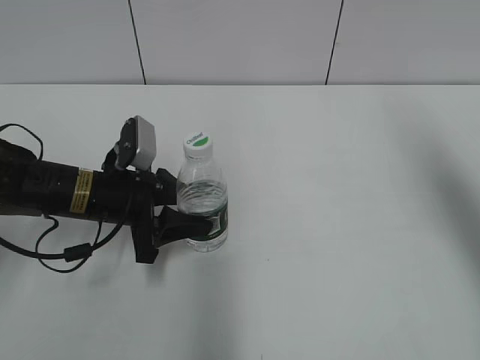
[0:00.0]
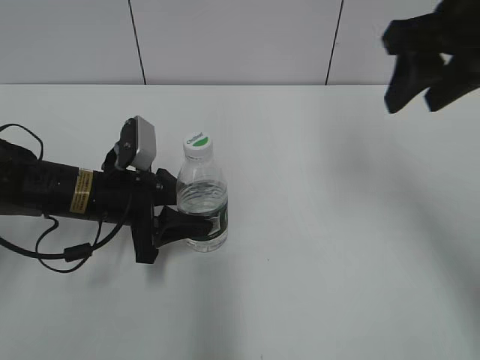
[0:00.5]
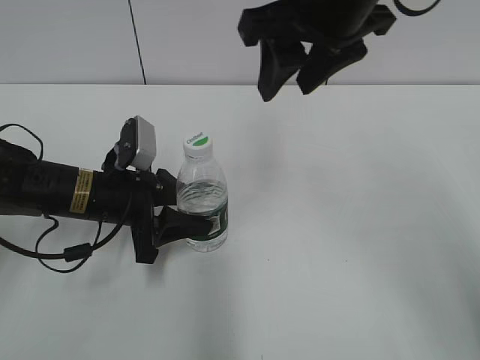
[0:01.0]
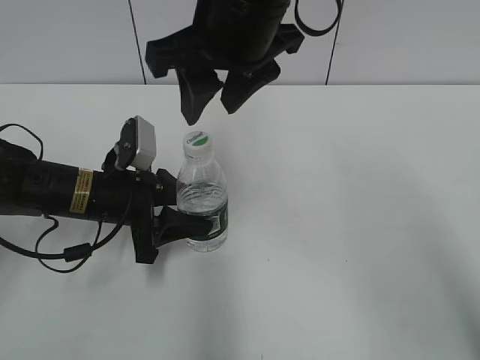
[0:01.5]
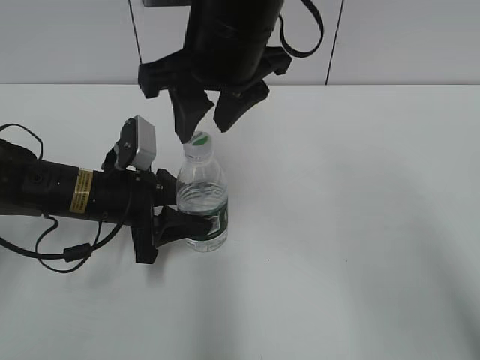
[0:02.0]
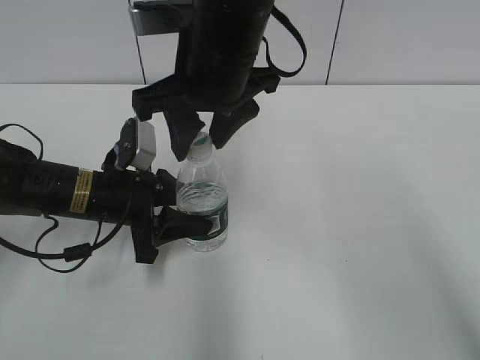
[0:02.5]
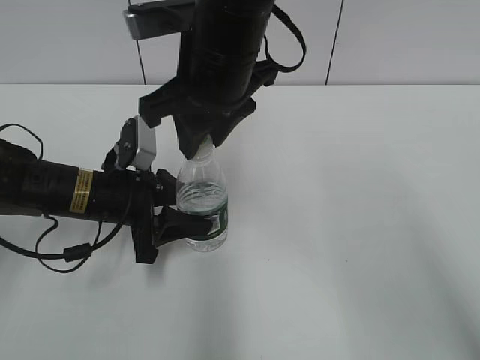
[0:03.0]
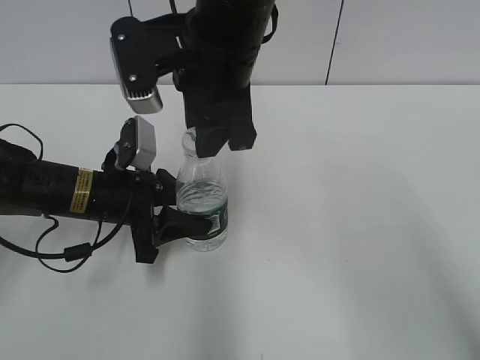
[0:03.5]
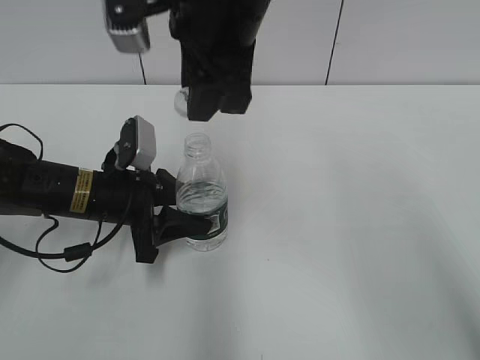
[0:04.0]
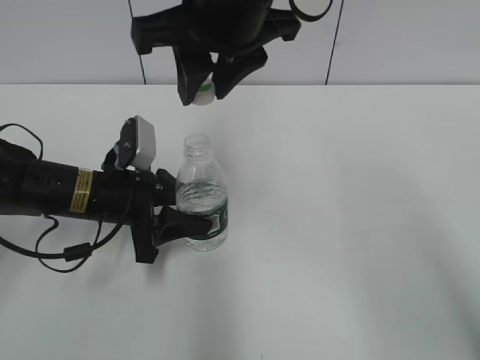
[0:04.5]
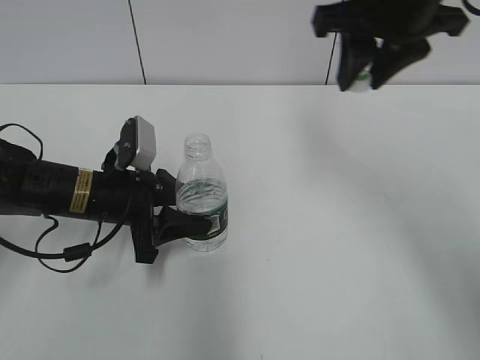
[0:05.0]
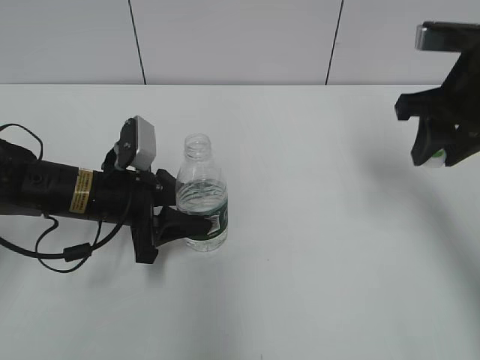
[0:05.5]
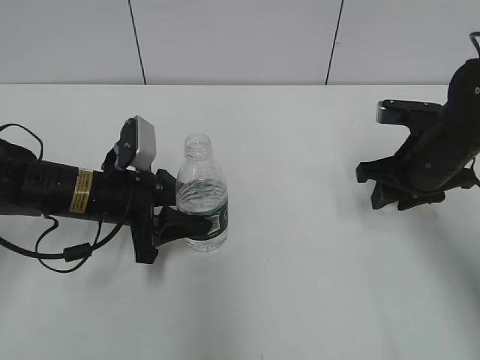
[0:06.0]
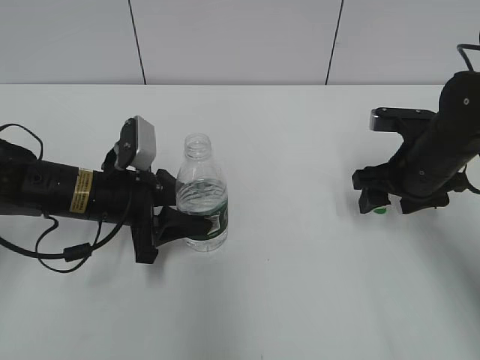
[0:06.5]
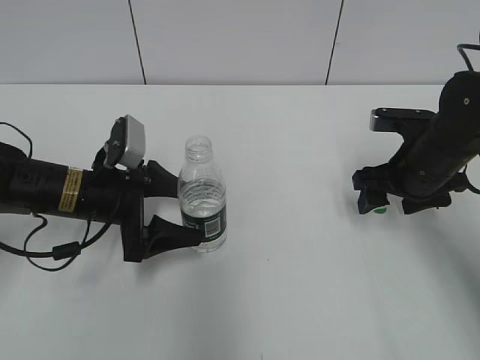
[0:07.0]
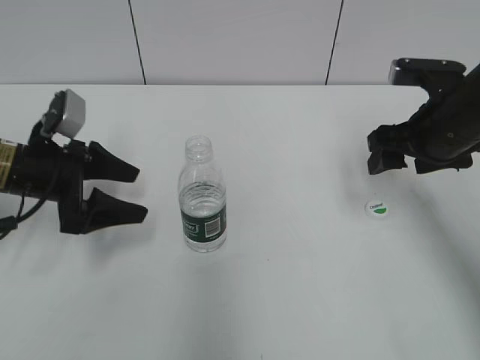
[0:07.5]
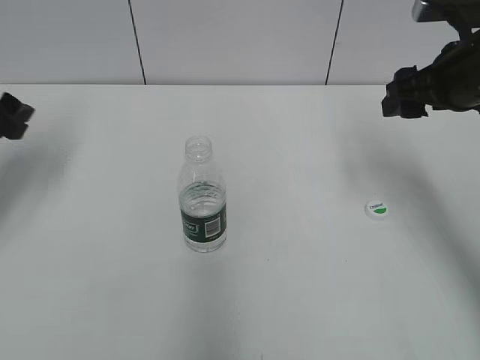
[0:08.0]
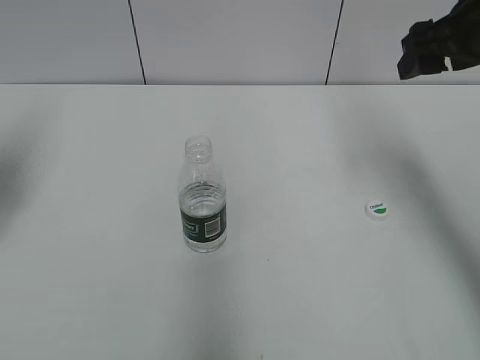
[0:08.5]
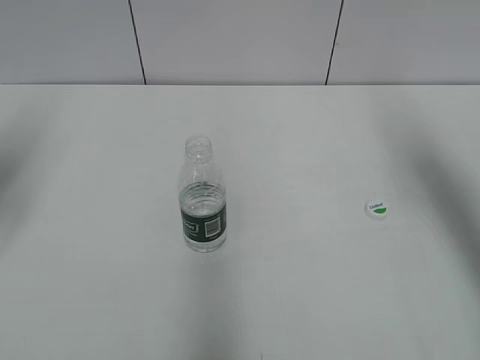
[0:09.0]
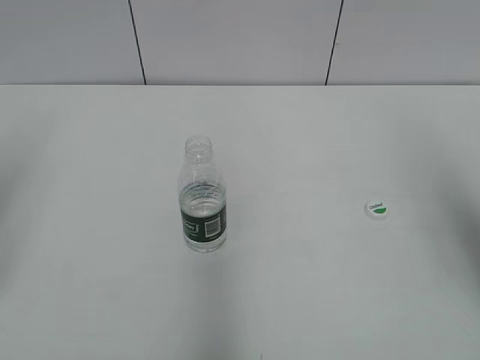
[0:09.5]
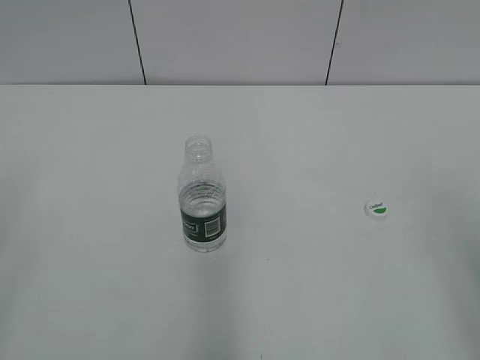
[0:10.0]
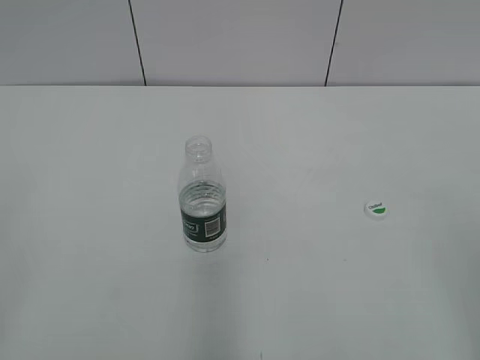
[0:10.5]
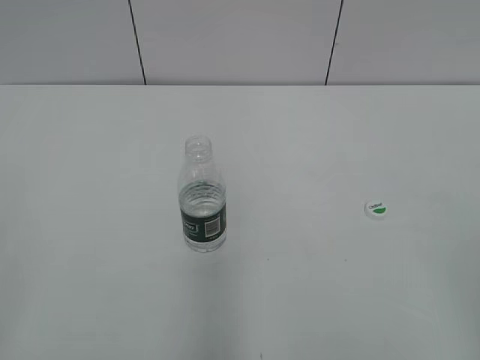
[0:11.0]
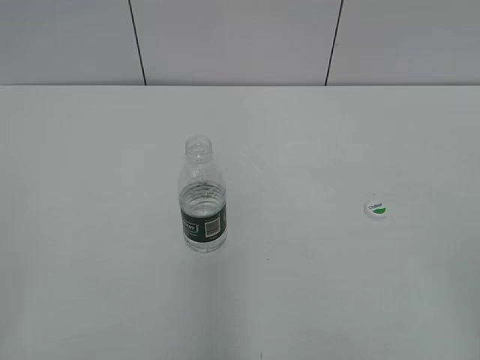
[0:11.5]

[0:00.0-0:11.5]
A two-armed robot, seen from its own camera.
Step, 0:00.0 to 0:04.0: Unscrew the bottle cap with the right gripper while holding the bottle with the left gripper.
Step, 0:04.5 to 0:06.0: Place the bottle cap on the table with the right gripper.
Step, 0:07.0 to 0:07.5: Place the bottle on the table with the left gripper.
0:00.0 to 0:02.0: The right gripper is displaced to the left by some 30 cm.
0:02.0 to 0:04.0: The right gripper closes its fingers.
0:04.0 to 0:06.0: The right gripper heads to the right and downward, covering roughly 30 cm.
0:06.0 to 0:07.5: The right gripper opens its fingers; the left gripper shifts roughly 10 cm to the left, and opens its fingers.
0:07.5 to 0:09.5: The right gripper is displaced upward, backward and to the right by roughly 20 cm. Meanwhile the left gripper moves upward, backward and to the left, approximately 25 cm, and closes up.
0:09.5 to 0:11.5: The right gripper is displaced backward by roughly 20 cm.
